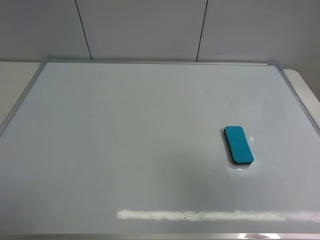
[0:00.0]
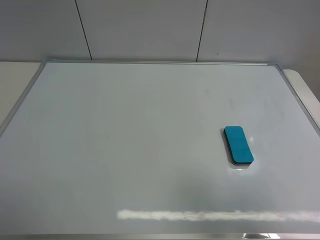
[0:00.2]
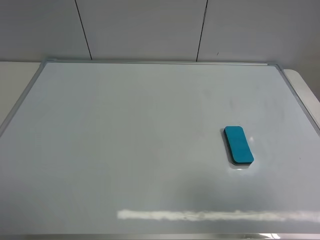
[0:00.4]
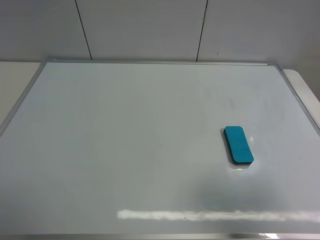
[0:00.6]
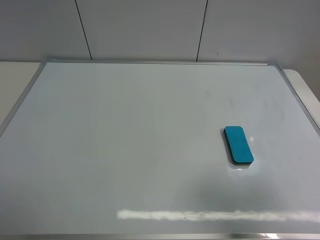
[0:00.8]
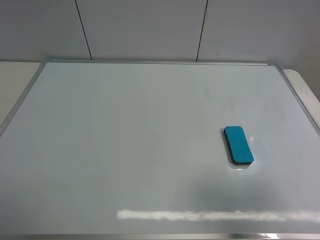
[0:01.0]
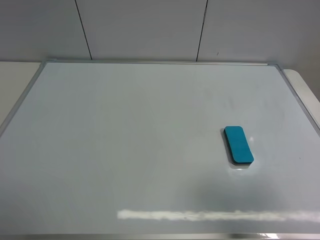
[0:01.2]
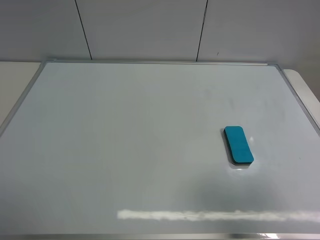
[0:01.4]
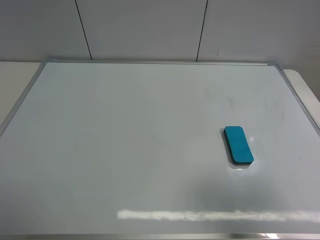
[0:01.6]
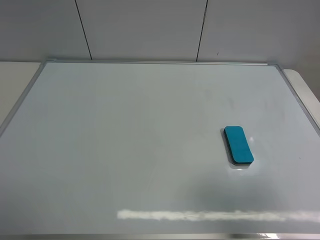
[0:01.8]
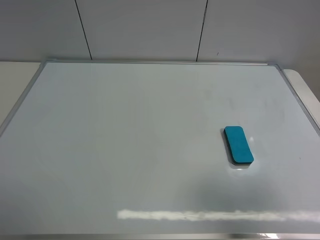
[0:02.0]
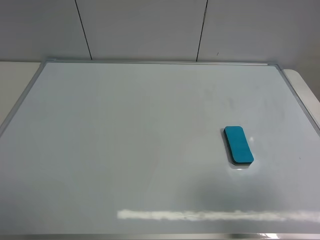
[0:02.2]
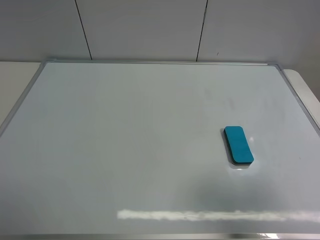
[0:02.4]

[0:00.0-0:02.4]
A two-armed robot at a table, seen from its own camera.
Task of the whole recording: use the left gripper to place the eraser in the right, use the right gripper to pick up the eraser, wipe the notes on the whiteboard clean, and then put it down.
0:00.0 to 0:01.2: The right gripper travels downward by roughly 10 cm.
0:01.2 to 0:02.4: Neither gripper changes place.
